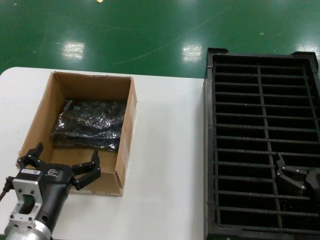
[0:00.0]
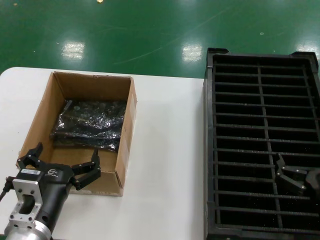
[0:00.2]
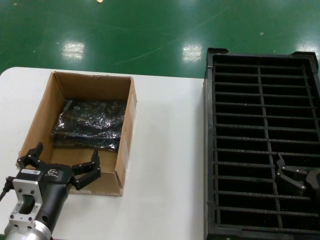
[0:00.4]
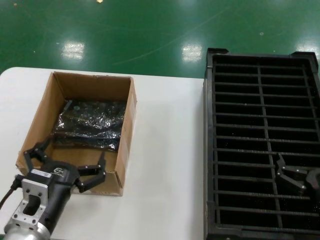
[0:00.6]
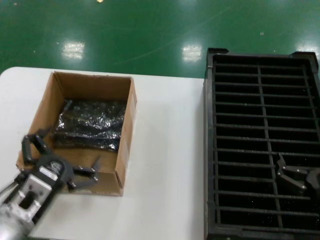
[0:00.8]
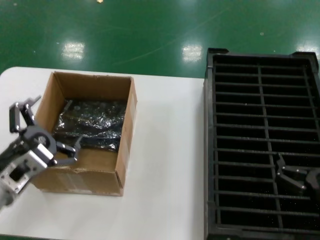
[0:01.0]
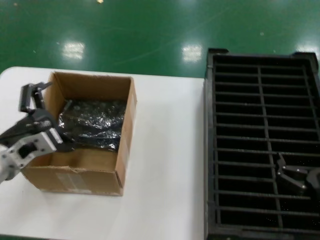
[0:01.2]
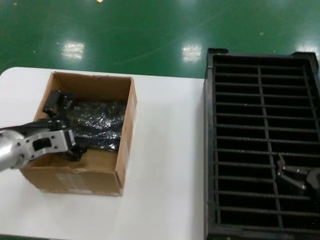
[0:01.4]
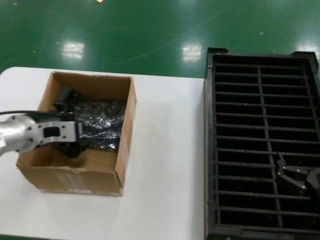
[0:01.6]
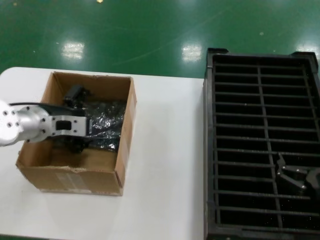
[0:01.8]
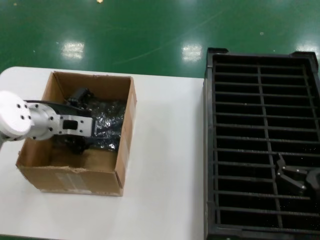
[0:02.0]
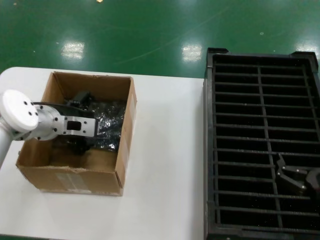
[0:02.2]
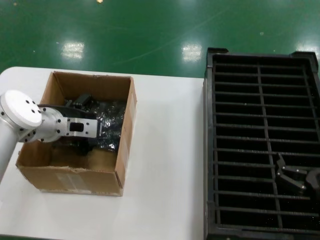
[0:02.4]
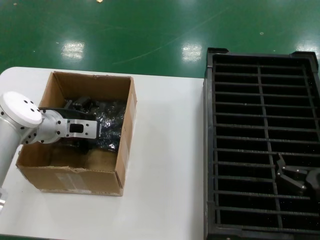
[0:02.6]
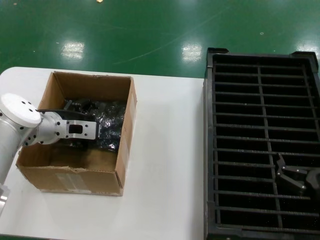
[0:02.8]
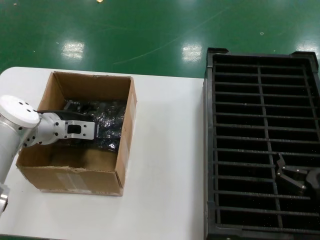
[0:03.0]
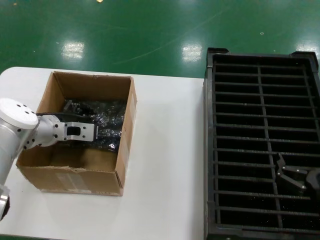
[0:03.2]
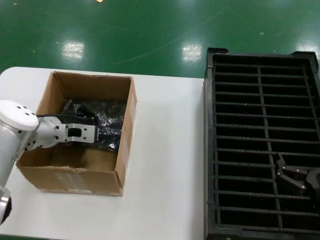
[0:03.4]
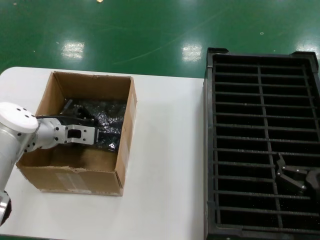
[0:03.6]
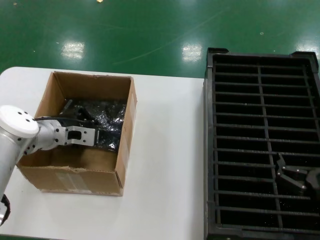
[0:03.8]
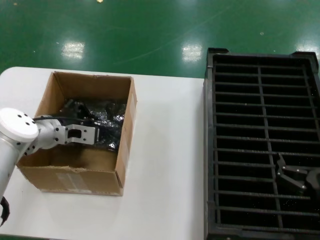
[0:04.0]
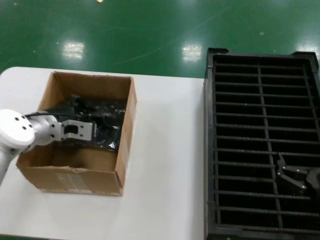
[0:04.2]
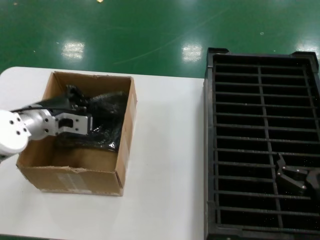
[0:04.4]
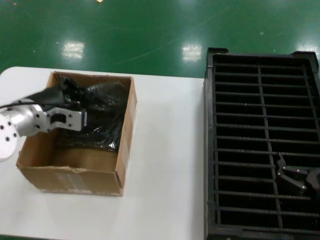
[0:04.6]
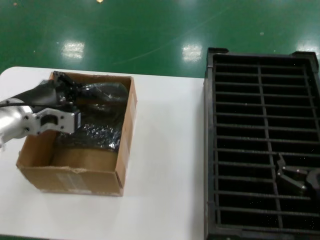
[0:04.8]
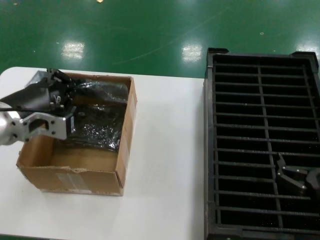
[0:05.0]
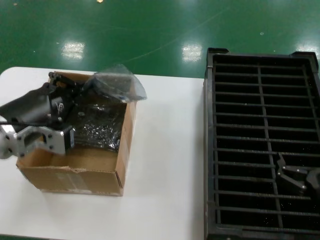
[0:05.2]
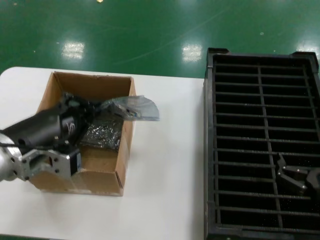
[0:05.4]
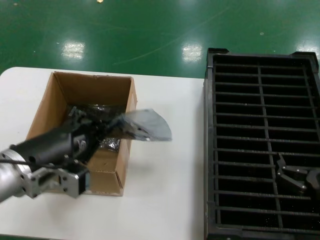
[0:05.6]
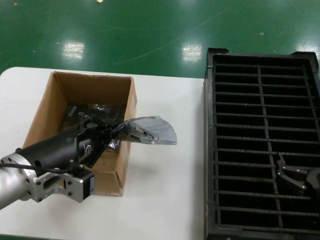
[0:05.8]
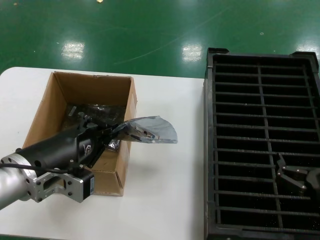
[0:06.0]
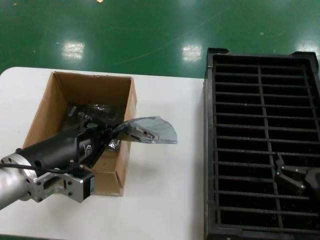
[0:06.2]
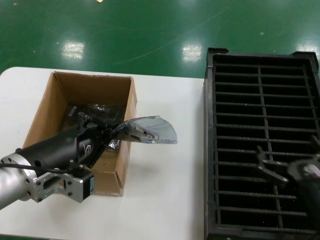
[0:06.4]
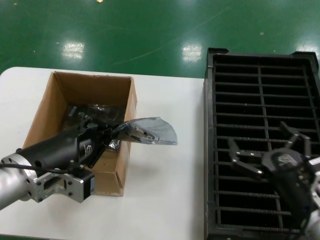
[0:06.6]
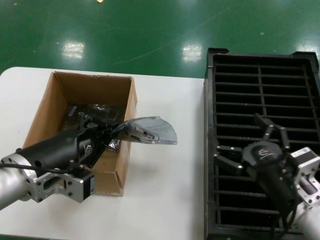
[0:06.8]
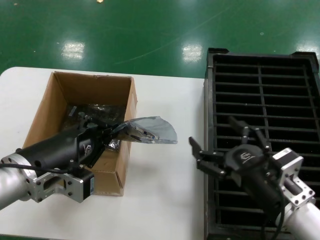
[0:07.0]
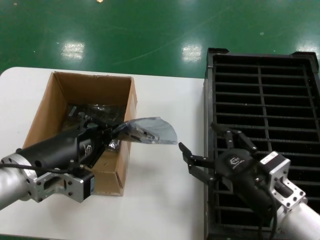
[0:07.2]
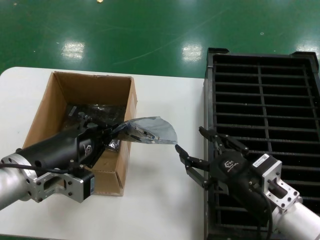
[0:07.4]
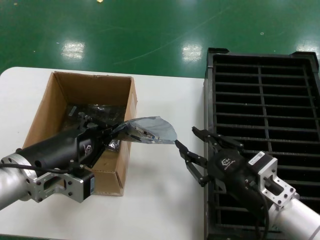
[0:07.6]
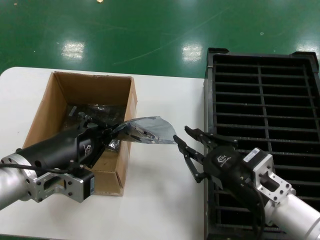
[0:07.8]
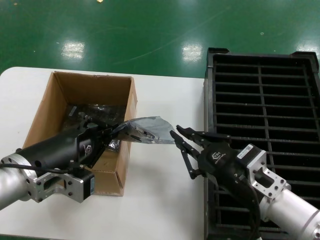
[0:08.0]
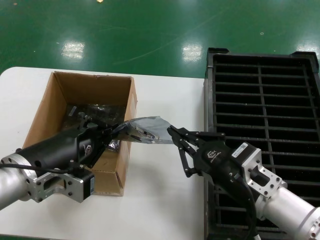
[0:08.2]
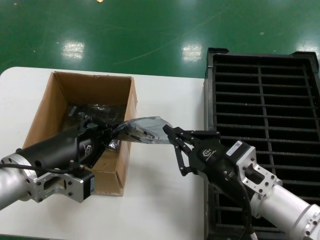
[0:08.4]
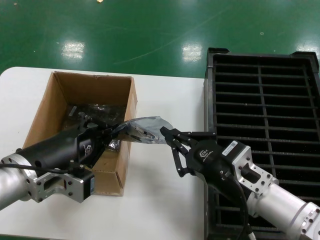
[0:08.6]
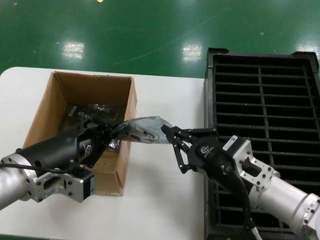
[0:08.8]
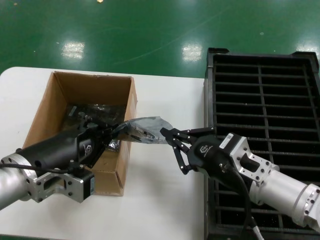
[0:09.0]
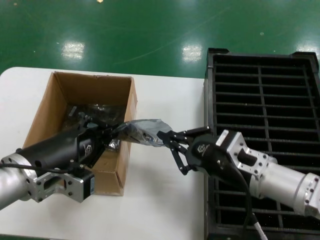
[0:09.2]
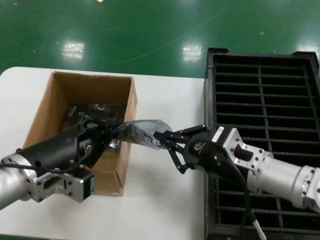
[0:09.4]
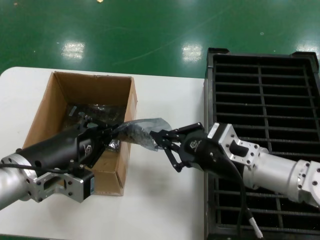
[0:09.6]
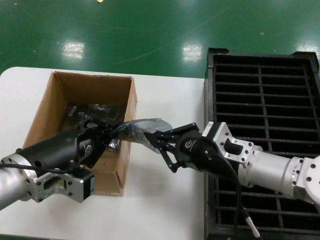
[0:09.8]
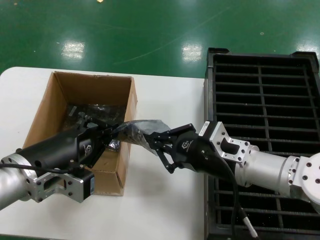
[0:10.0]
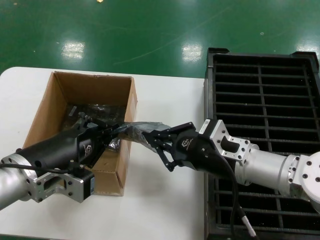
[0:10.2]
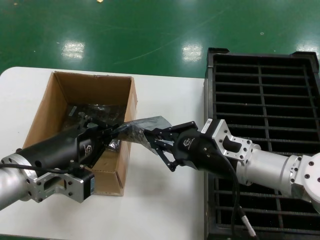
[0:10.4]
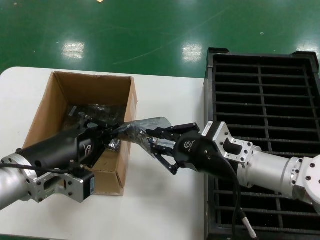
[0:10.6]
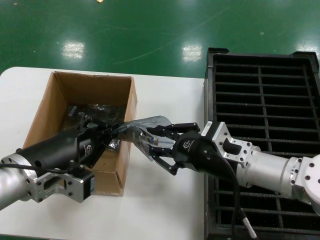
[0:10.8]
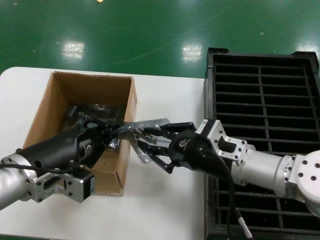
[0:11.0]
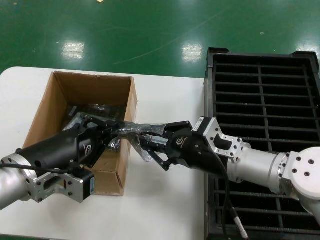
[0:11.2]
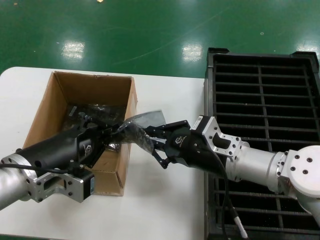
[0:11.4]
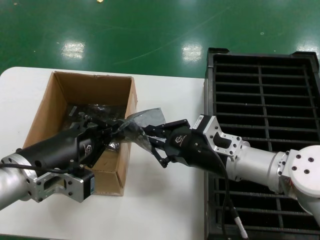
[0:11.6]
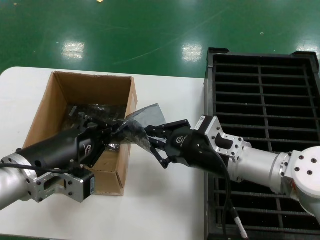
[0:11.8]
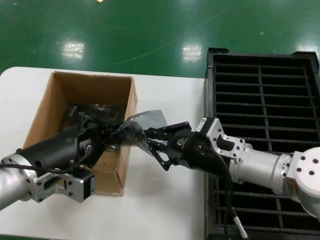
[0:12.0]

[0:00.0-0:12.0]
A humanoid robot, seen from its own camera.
Task of the whole recording: take out graphics card from box remove packaging put into black container.
Step, 0:00.0 to 0:03.8: Grasp the bag.
Step, 0:04.2 to 0:05.8: Lift the bag.
0:00.0 to 0:01.6: The left hand shifts about 20 cm forward, upward and to the left.
0:01.6 to 0:03.0: The left hand moves forward, approximately 10 cm.
0:03.0 to 0:04.4: The hands stay close to where they were, moving slightly.
0:04.4 to 0:06.0: The left hand goes about 20 cm backward.
0:06.0 to 0:07.6: The right hand is displaced to the left and forward by roughly 10 cm.
0:07.6 to 0:09.0: The right hand moves about 5 cm.
0:09.0 to 0:10.4: The right hand shifts by roughly 5 cm.
0:10.4 to 0:12.0: The hands make only small movements.

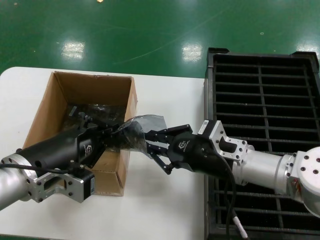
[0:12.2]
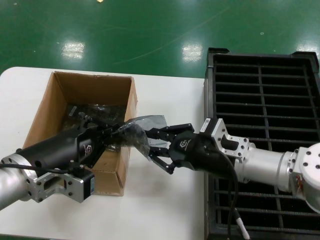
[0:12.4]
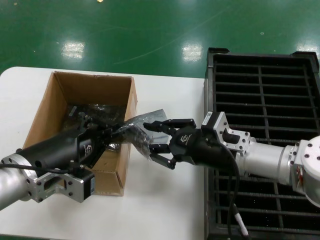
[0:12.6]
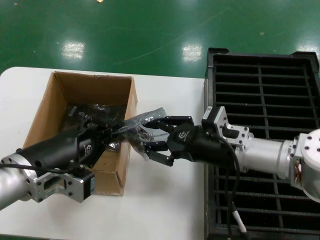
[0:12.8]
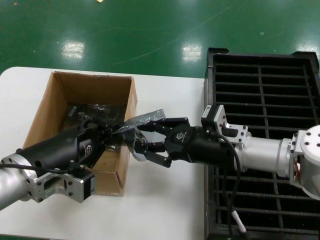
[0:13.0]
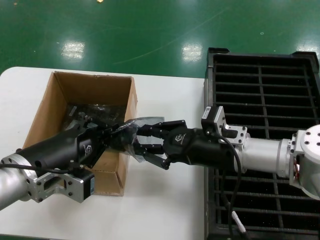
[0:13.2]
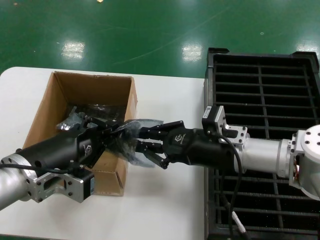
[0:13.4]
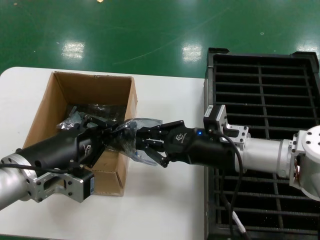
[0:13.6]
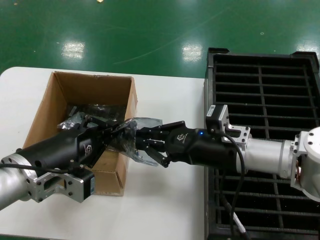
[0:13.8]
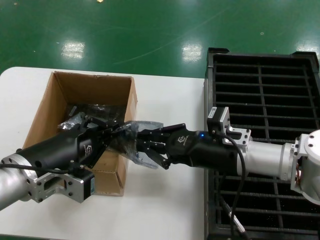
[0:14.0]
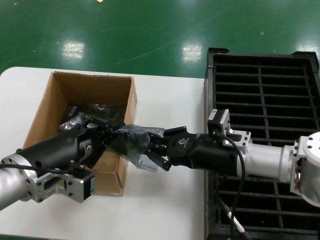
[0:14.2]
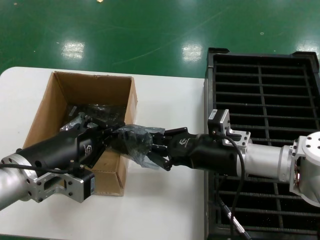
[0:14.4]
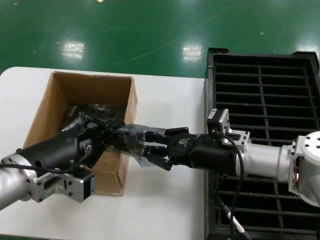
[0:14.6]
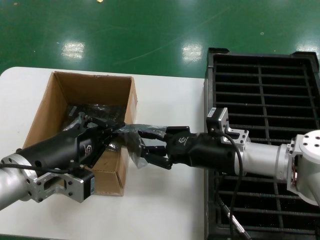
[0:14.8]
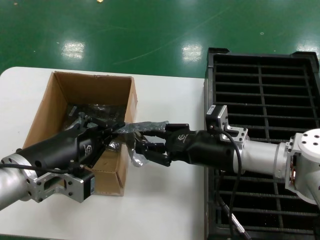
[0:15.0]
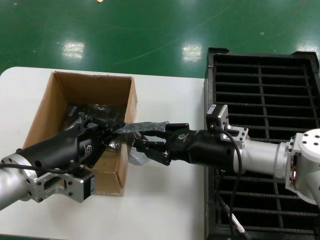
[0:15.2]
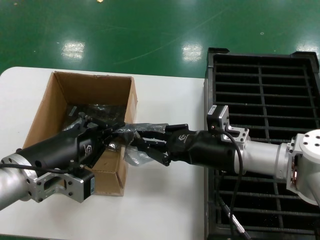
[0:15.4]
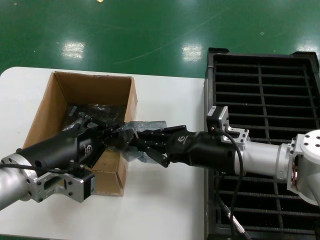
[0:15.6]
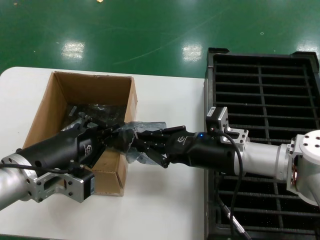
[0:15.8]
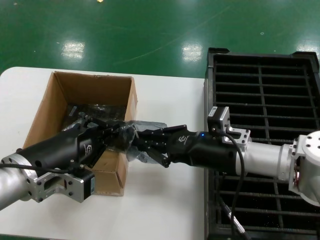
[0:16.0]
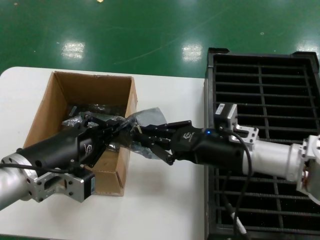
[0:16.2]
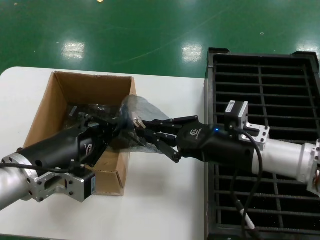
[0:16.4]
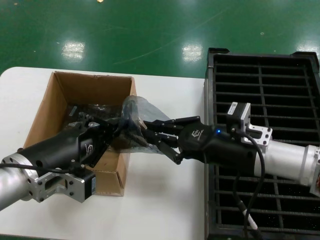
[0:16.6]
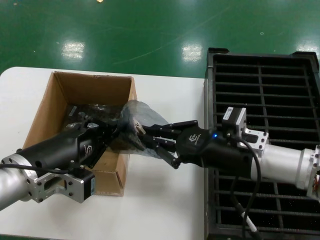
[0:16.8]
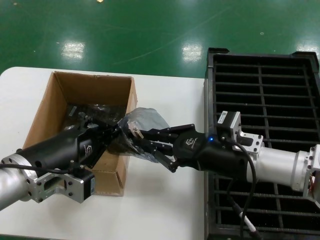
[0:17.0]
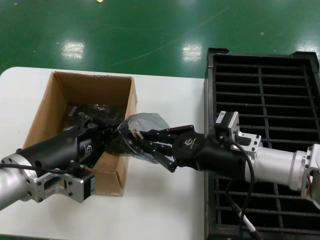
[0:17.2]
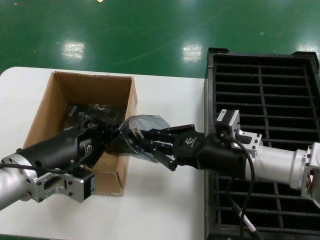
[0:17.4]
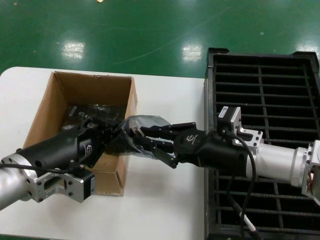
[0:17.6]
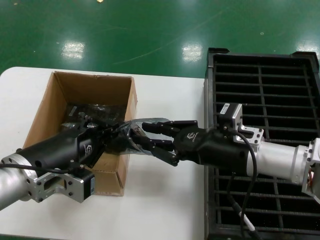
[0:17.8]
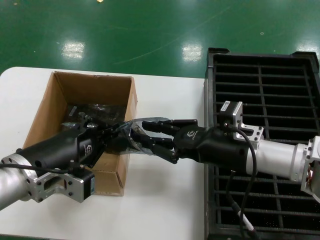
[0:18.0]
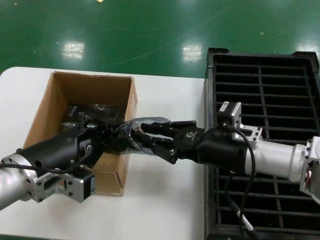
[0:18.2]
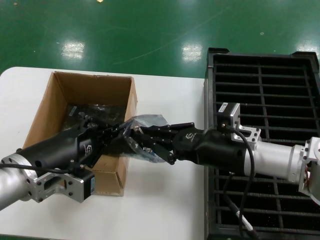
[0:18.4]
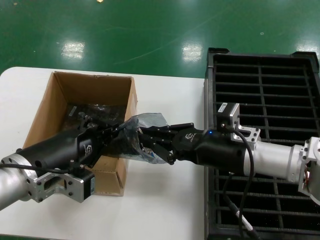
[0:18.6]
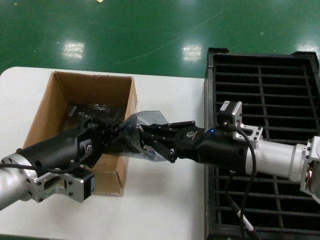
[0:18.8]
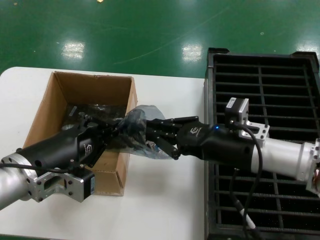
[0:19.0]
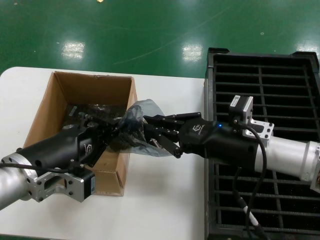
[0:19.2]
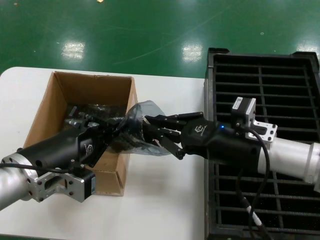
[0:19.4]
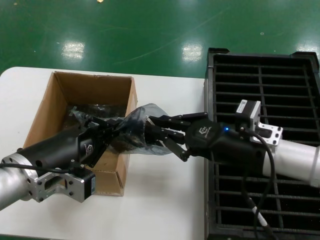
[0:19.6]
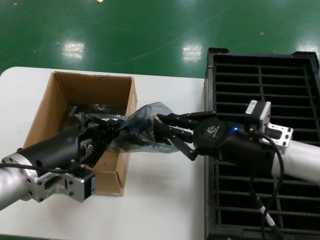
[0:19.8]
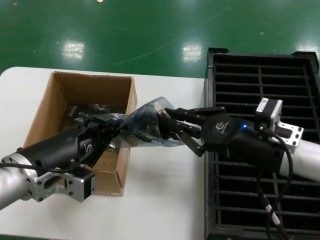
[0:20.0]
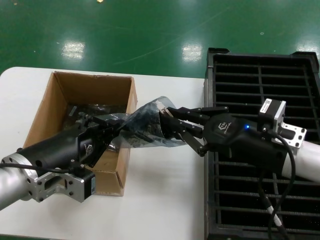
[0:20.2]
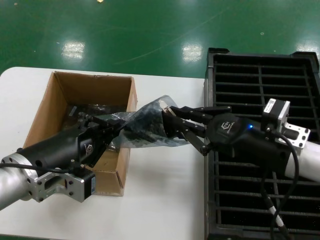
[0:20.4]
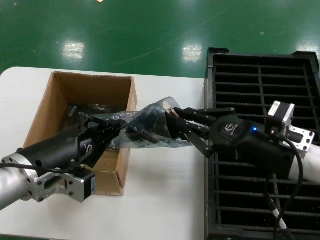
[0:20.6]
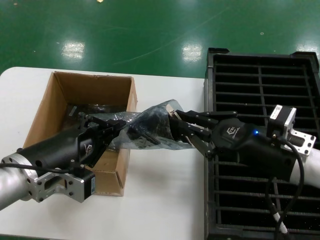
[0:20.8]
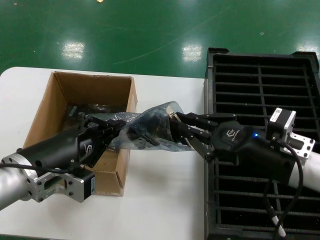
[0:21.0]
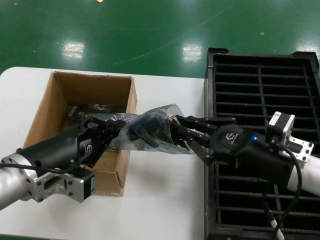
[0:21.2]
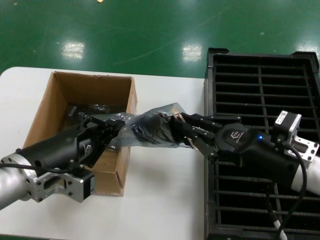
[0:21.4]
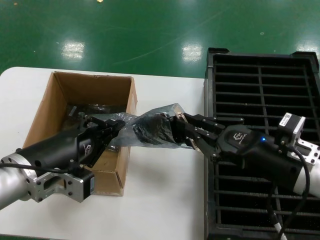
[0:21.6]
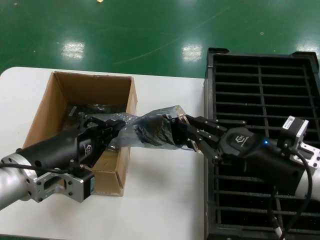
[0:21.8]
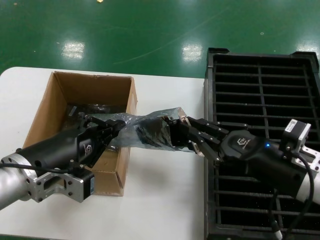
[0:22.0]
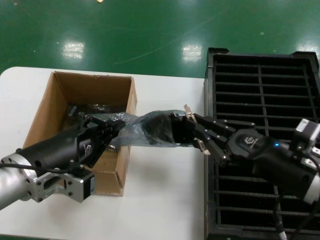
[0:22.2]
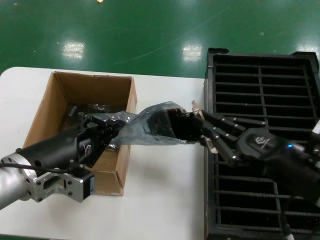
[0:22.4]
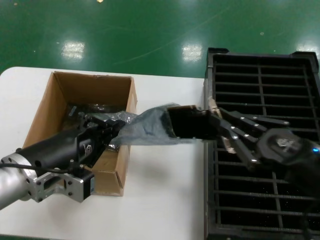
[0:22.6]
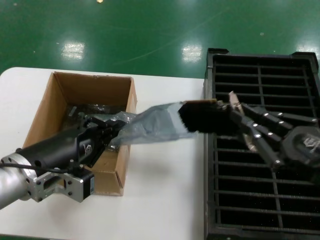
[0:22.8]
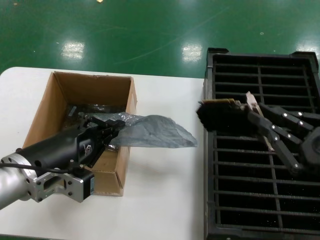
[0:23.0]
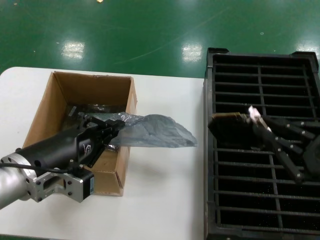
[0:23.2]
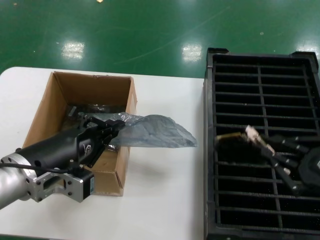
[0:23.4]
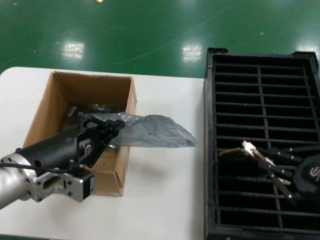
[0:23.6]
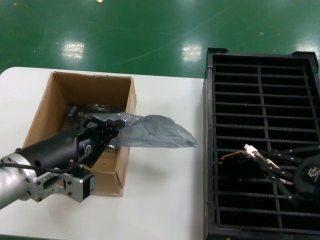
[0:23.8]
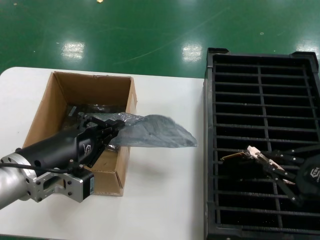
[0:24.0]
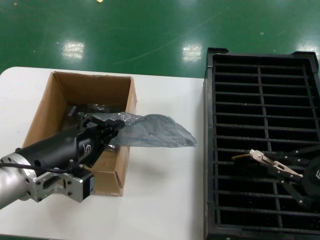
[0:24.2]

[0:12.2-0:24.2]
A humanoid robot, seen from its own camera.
Task of the whole recording: take out graphics card from box remove packaging put into black container.
Step, 0:12.2 to 0:22.8: Take out the hard disk of the bag.
0:12.2 to 0:15.2: There are only small adjustments of the hands.
0:15.2 to 0:16.6: The right hand changes place by approximately 5 cm.
0:16.6 to 0:18.2: The hands move only a little.
0:18.2 to 0:19.8: The right hand shifts by approximately 5 cm.
0:19.8 to 0:21.2: The hands move only a little.
0:21.2 to 0:22.6: The right hand travels backward by approximately 5 cm.
0:22.6 to 0:24.2: The right hand travels upward by approximately 5 cm.
